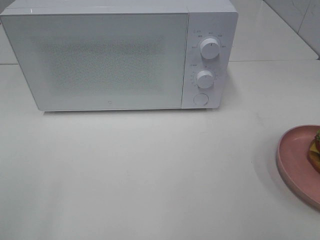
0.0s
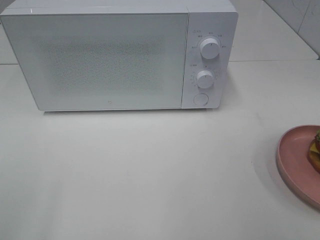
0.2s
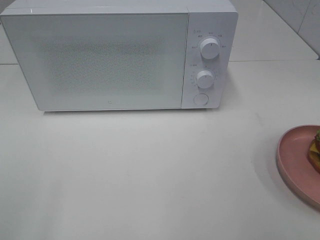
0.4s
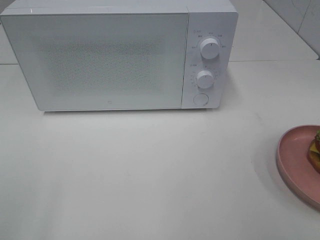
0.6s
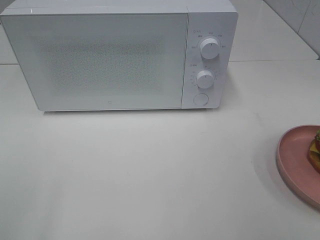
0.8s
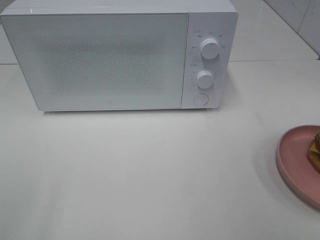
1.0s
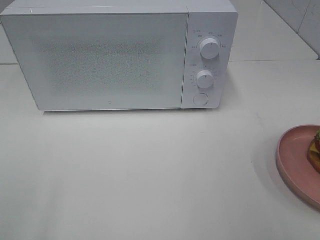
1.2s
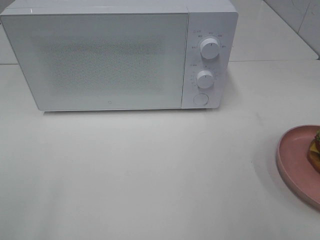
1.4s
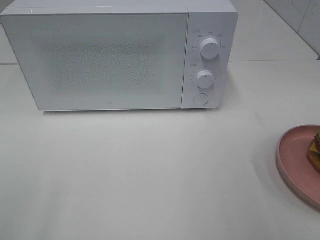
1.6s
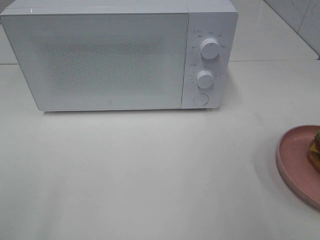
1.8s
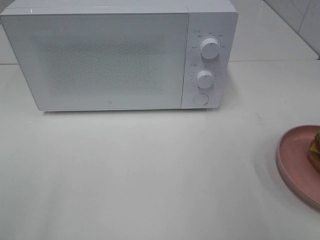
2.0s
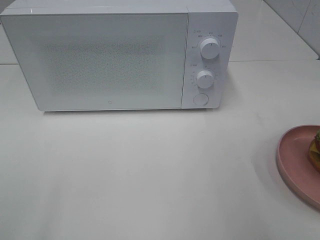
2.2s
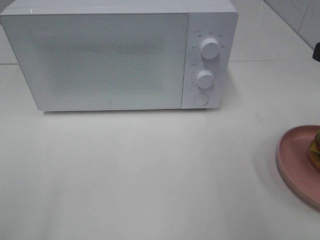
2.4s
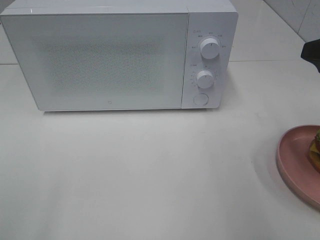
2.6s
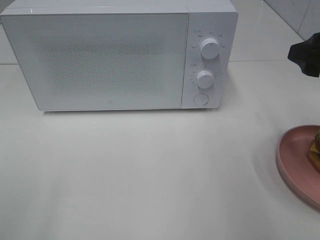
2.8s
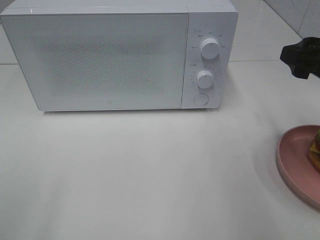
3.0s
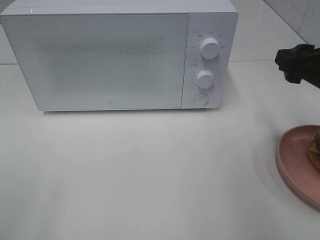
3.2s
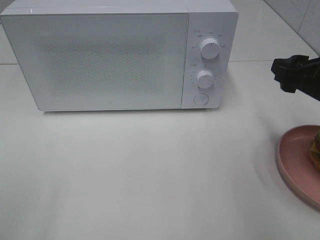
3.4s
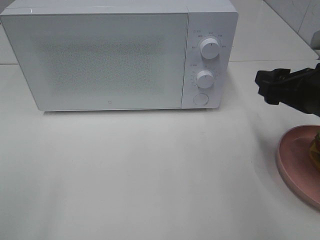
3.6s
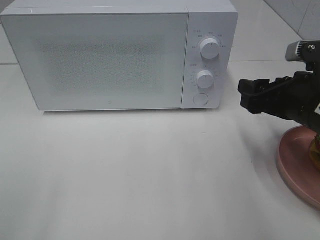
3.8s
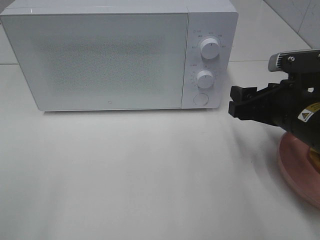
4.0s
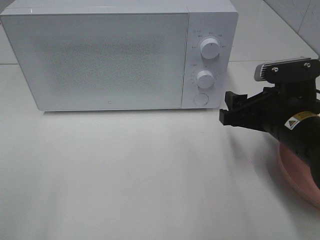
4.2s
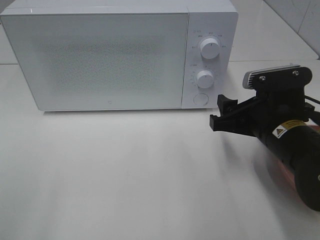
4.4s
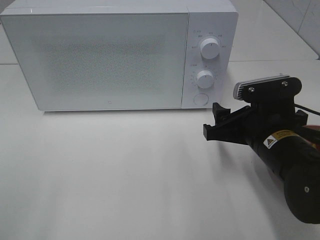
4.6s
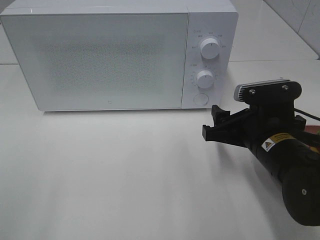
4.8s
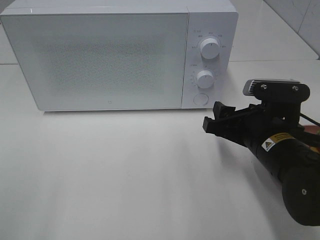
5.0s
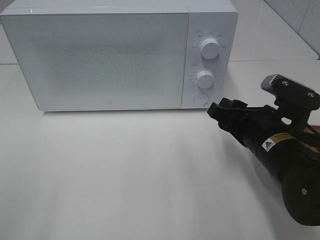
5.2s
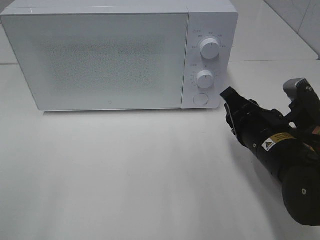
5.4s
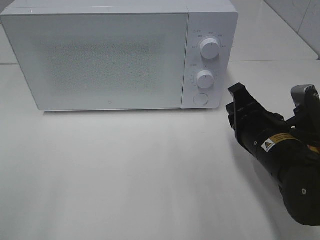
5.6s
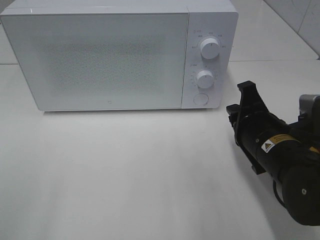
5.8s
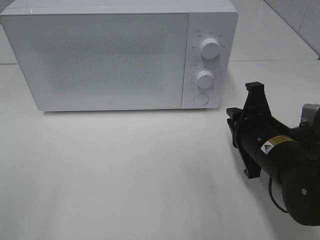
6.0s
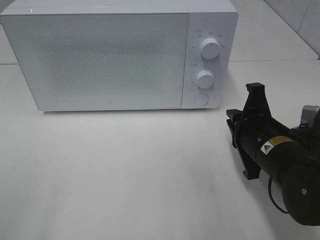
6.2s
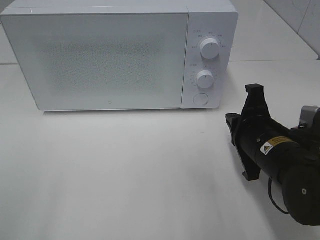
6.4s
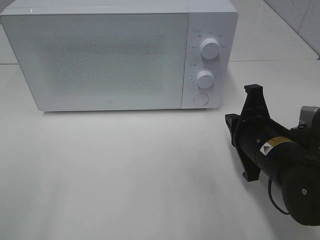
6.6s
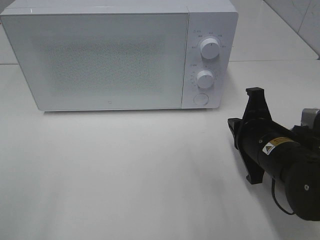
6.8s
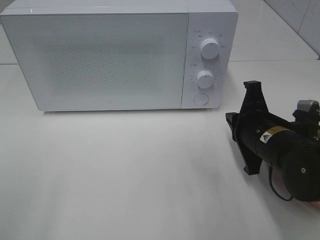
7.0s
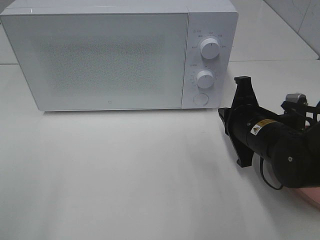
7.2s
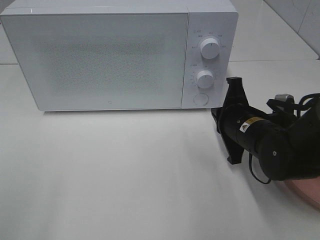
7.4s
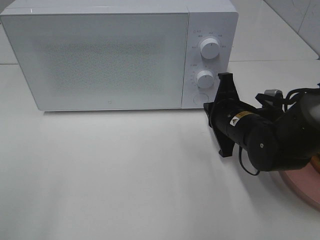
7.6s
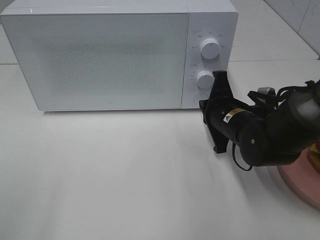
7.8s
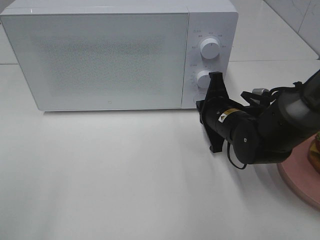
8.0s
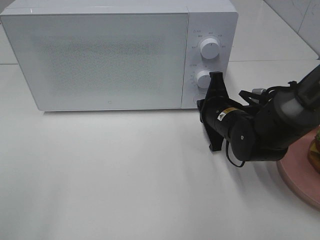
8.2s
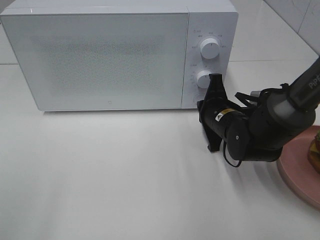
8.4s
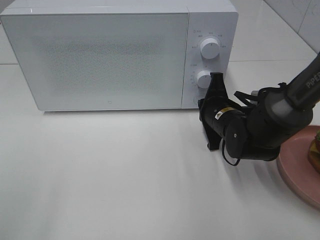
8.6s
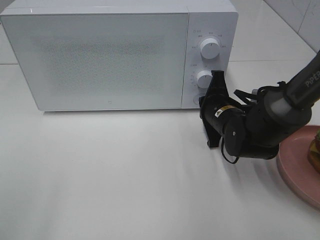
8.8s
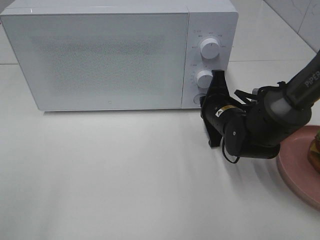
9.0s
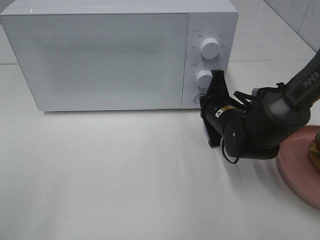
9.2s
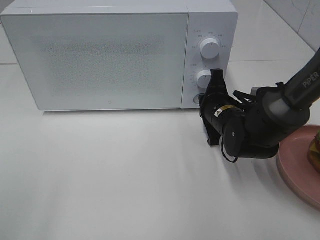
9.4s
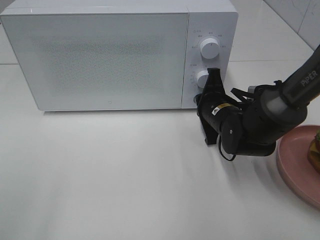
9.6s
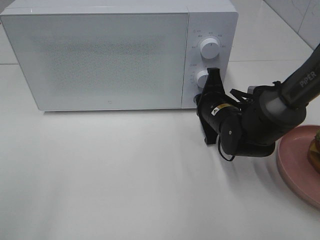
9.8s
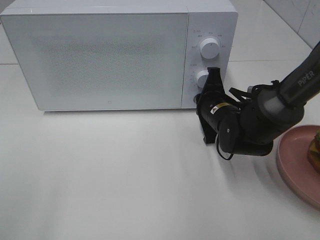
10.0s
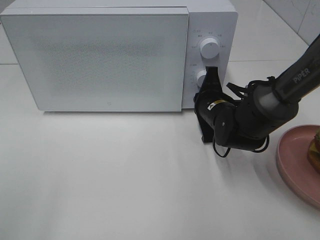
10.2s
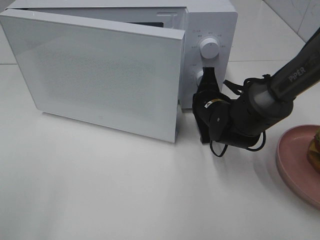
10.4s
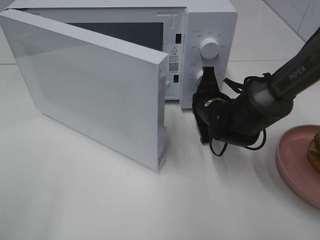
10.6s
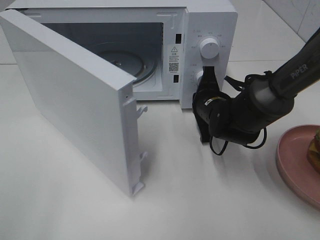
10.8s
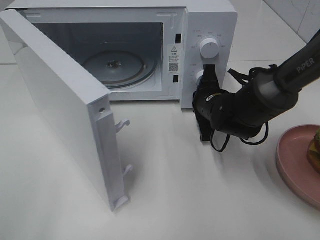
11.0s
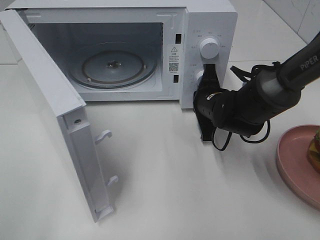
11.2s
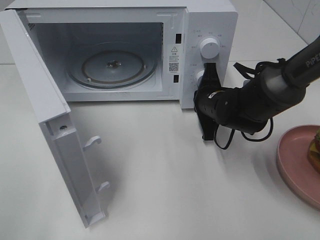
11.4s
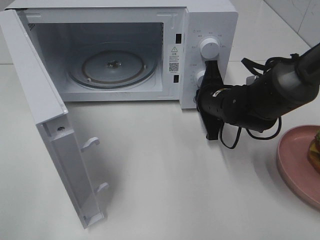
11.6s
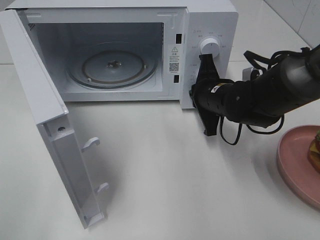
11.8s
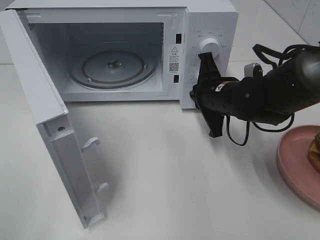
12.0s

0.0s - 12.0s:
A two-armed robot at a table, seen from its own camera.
Task of the whole recording: Heat the burger.
Step, 0.0s - 11.8s: Right hand: press the switch.
1.6s - 3.0s: The right gripper shifts approximately 15 cm forward and downward.
3.0s - 4.4s: The right gripper moves downward and to the left, approximately 15 cm.
4.4s - 6.0s: The right gripper closes up.
6.0s - 7.6s: The right gripper travels forward by approximately 5 cm.
7.6s - 9.0s: The grippers stay close to where they were, moving slightly.
9.0s - 10.4s: The grippers move only a little.
10.4s - 12.0s: The right gripper ends up about 5 cm from where it was.

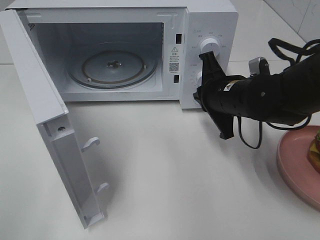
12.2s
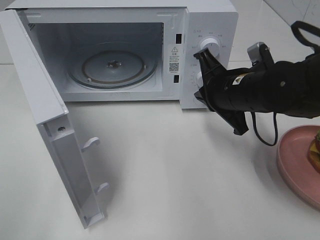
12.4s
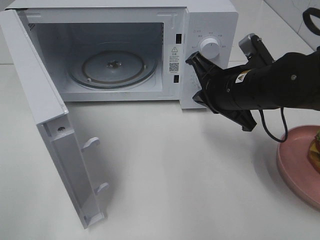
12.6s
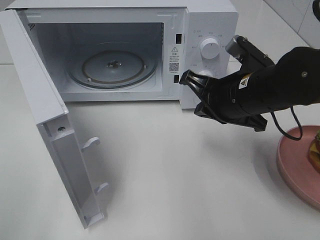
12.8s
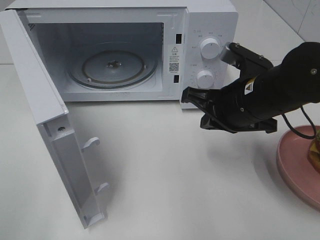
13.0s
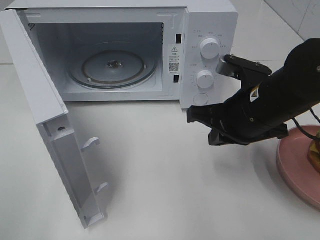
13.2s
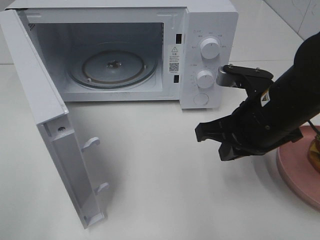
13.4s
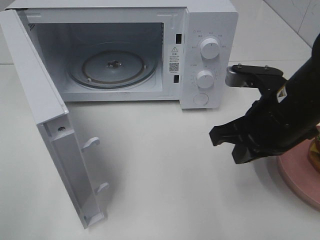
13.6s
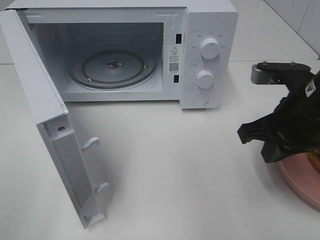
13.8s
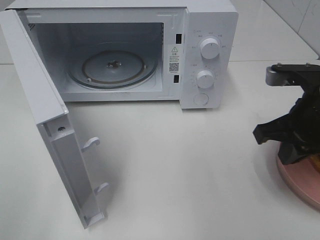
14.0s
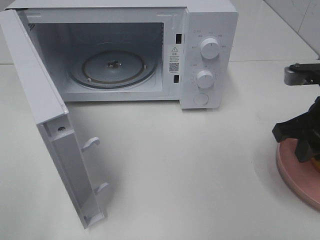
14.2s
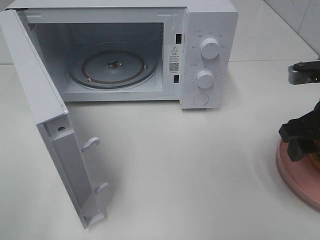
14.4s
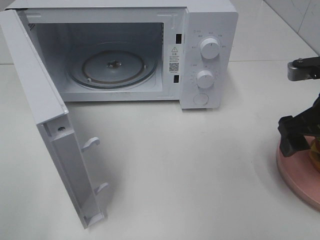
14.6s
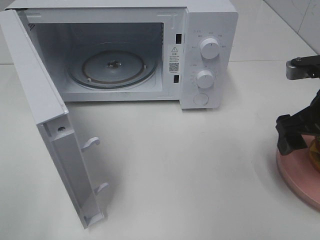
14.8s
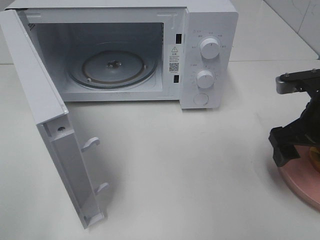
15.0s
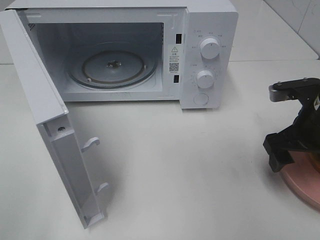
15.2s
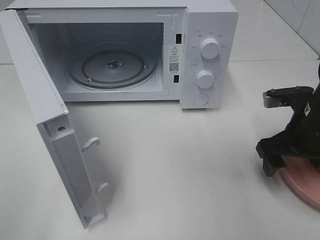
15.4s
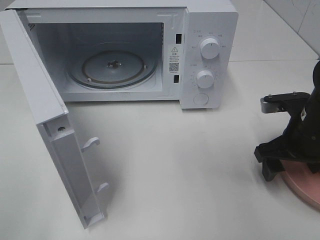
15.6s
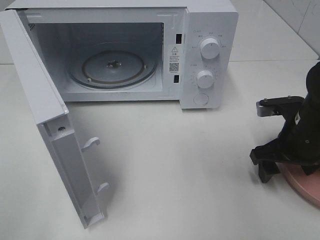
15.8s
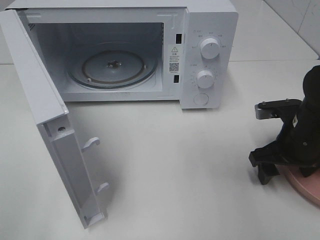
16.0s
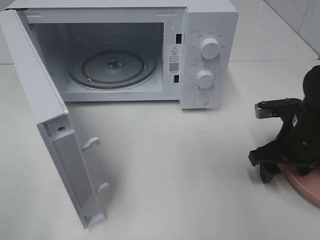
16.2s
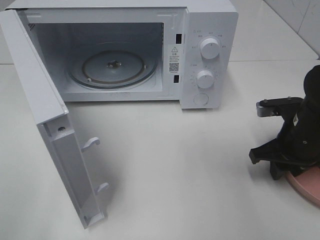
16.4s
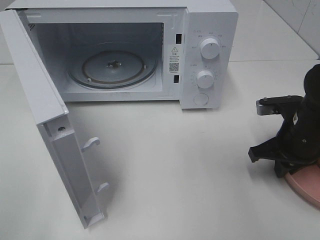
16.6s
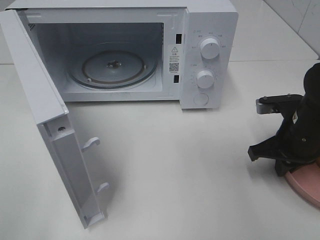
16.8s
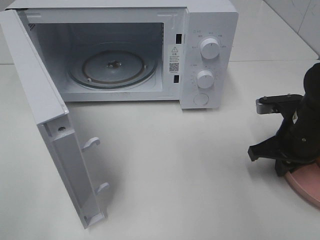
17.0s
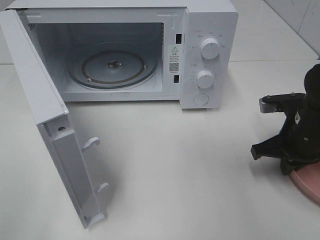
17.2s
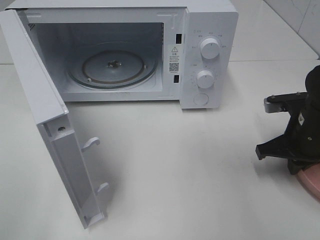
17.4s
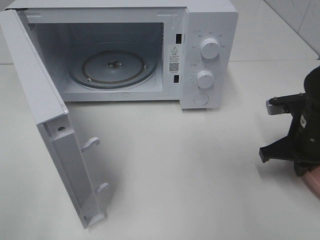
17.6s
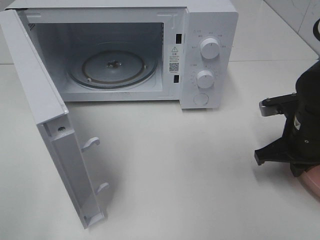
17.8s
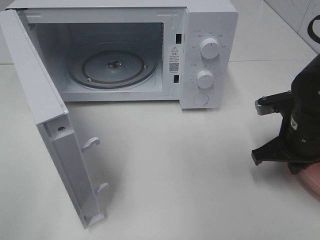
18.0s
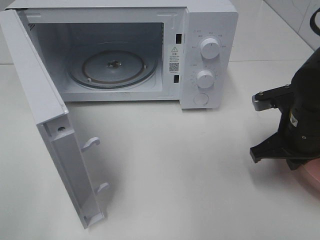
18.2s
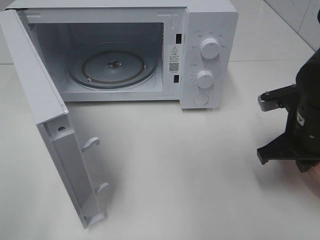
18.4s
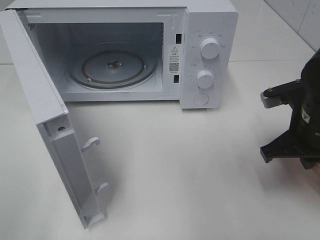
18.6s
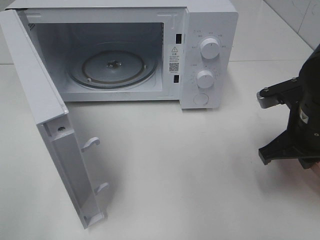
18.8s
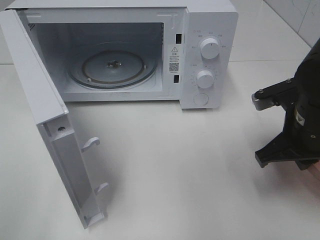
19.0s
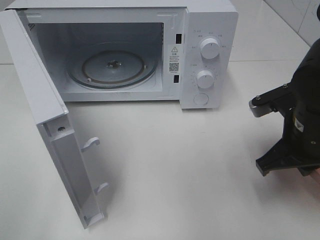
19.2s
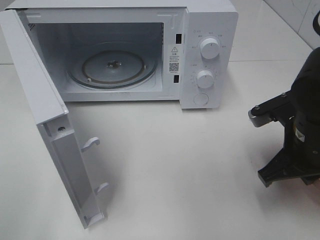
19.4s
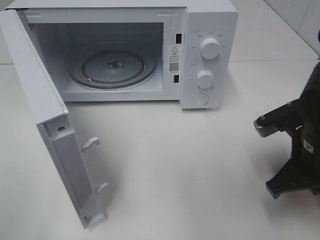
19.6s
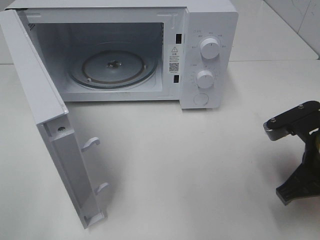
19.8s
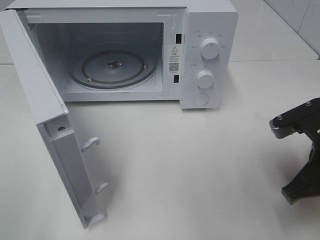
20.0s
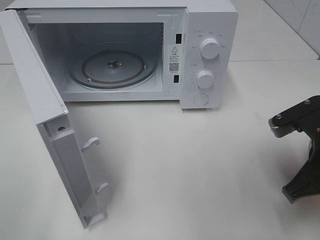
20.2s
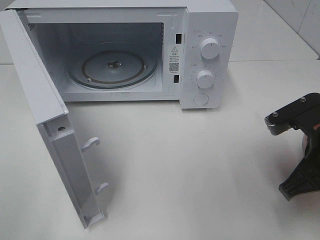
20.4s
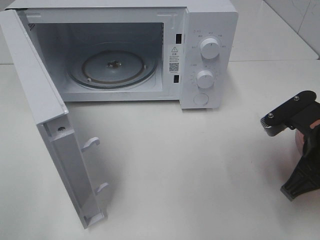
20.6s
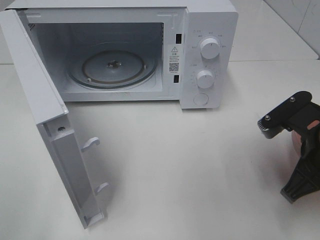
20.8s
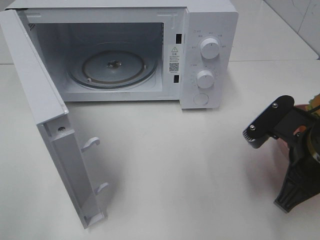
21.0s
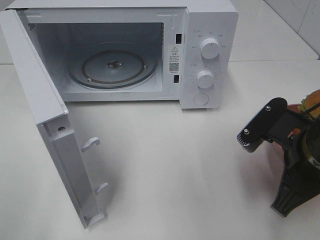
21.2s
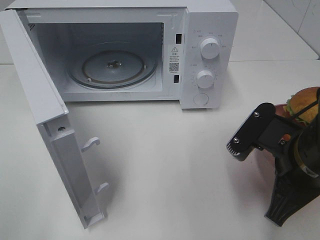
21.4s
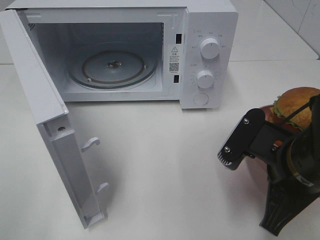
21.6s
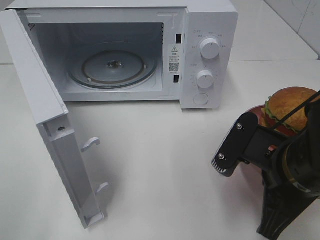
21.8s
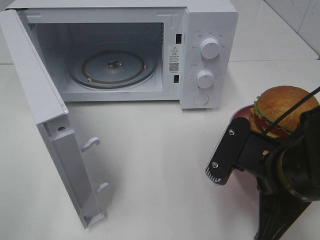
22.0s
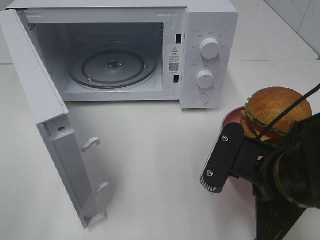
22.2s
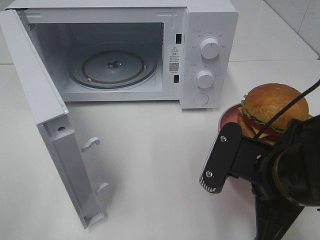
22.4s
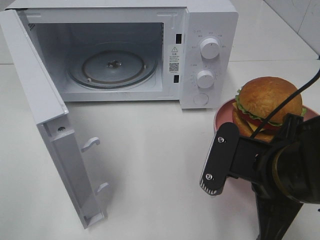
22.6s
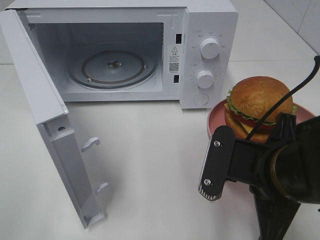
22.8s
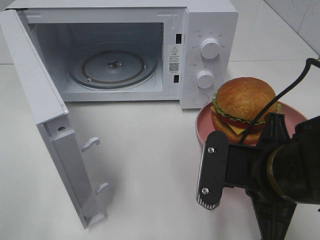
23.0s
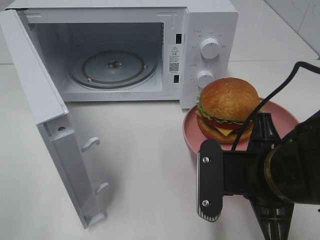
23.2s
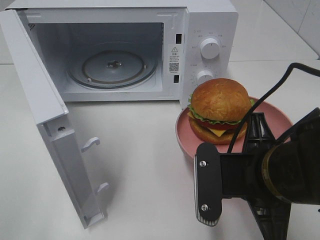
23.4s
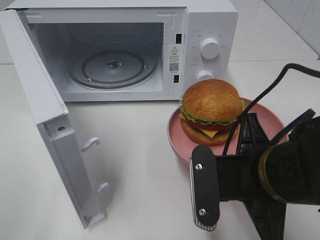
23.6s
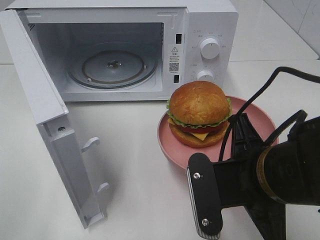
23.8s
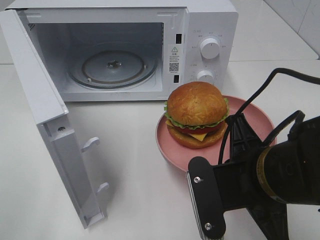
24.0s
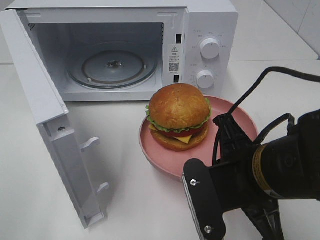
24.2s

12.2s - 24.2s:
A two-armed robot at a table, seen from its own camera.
Task of the whole recording: Heat the burger.
Step, 12.2s - 17.6s: Right hand: grab the plate with the hamburger.
12.2s - 13.8s: The right gripper is displaced backward, to the right and upward by some 10 cm.
13.8s - 15.2s: The right gripper goes some 5 cm to the right, and opens its fingers.
15.2s - 16.6s: The right gripper changes place by approximately 5 cm, and closes.
16.6s - 18.2s: The grippers move only a little.
18.2s - 19.8s: The right gripper goes roughly 5 cm backward.
21.2s - 22.6s: The right gripper goes some 5 cm to the left.
